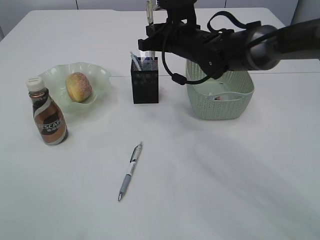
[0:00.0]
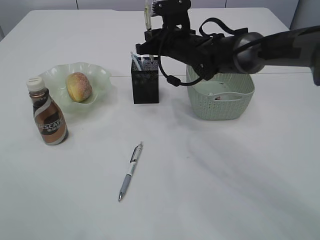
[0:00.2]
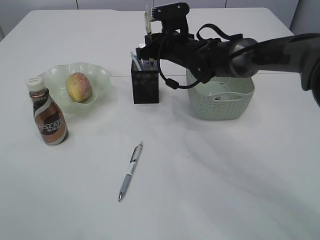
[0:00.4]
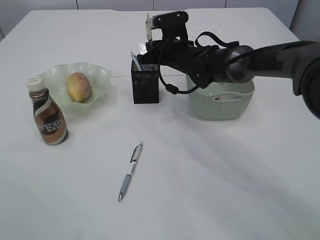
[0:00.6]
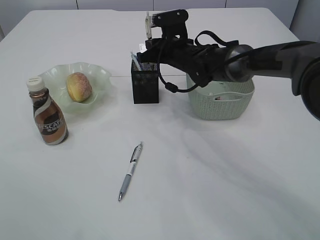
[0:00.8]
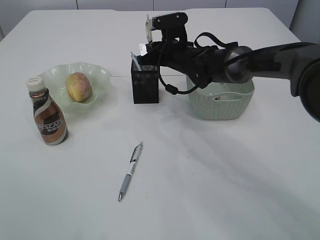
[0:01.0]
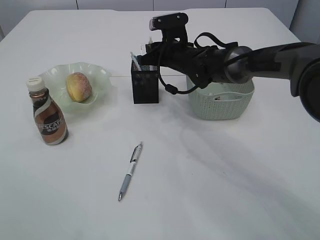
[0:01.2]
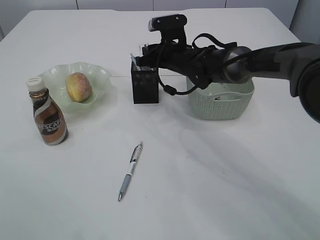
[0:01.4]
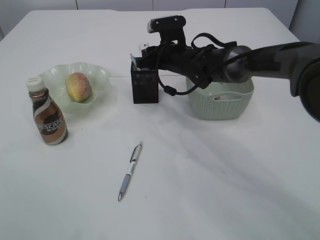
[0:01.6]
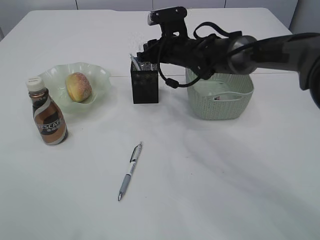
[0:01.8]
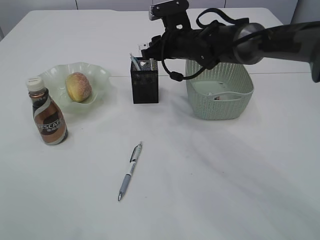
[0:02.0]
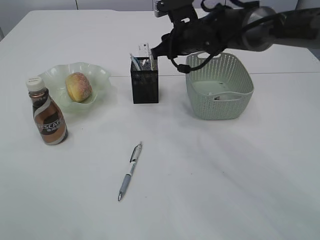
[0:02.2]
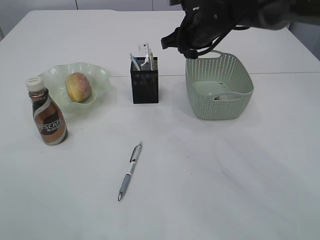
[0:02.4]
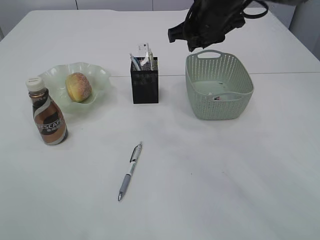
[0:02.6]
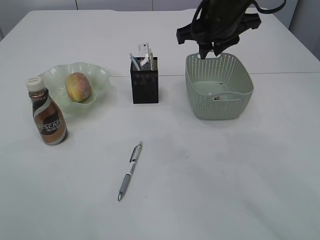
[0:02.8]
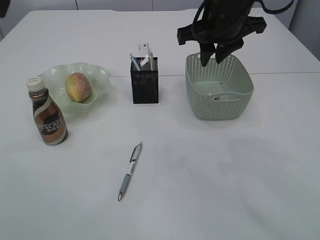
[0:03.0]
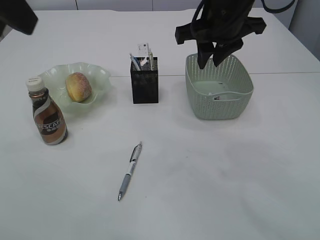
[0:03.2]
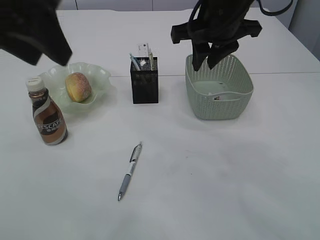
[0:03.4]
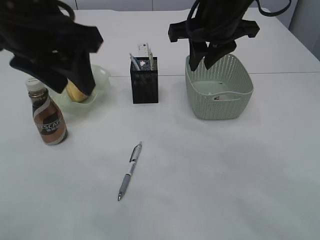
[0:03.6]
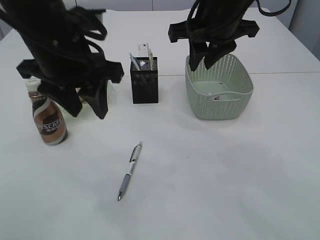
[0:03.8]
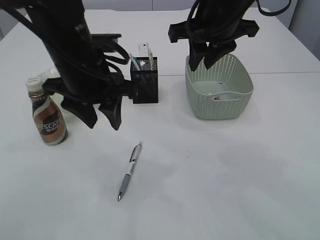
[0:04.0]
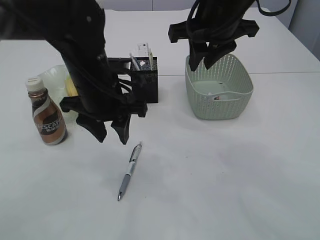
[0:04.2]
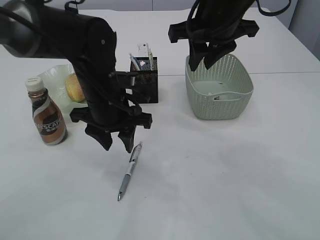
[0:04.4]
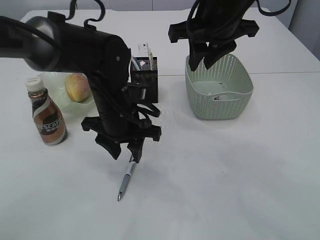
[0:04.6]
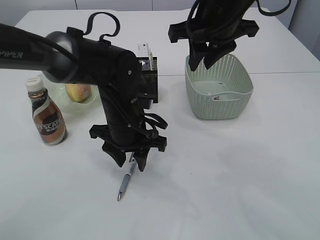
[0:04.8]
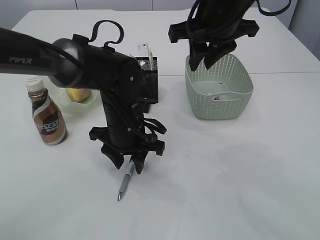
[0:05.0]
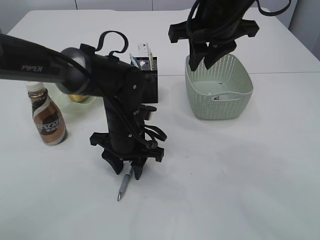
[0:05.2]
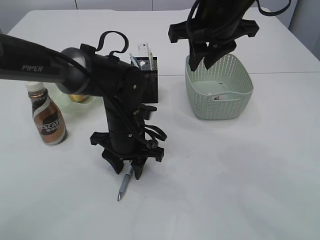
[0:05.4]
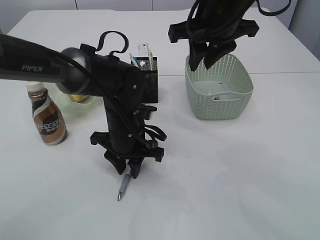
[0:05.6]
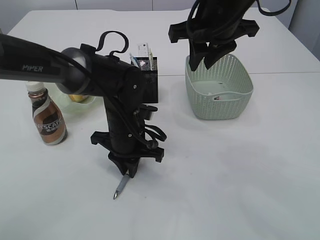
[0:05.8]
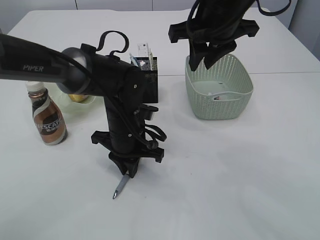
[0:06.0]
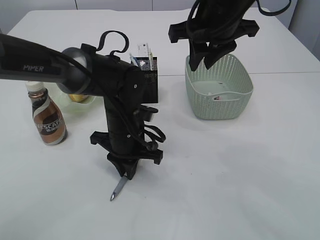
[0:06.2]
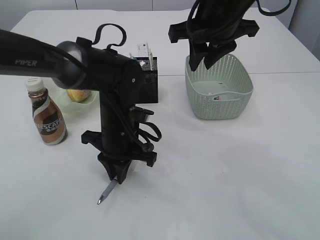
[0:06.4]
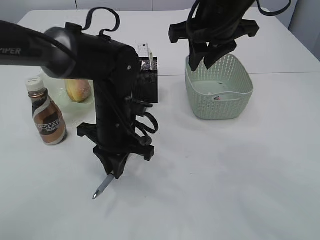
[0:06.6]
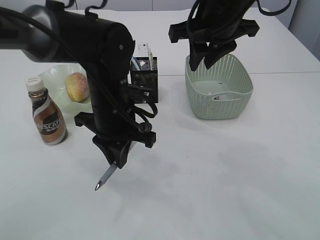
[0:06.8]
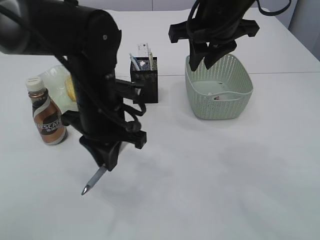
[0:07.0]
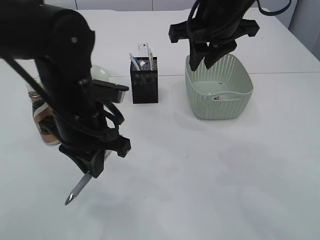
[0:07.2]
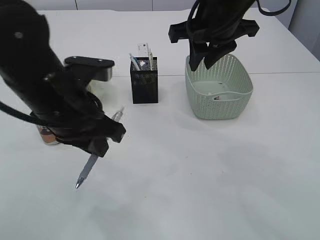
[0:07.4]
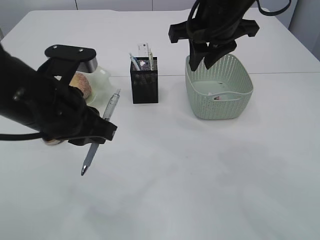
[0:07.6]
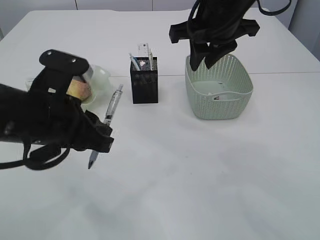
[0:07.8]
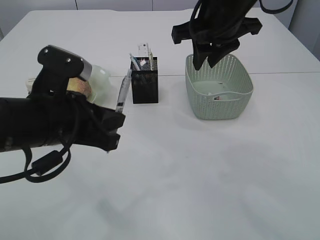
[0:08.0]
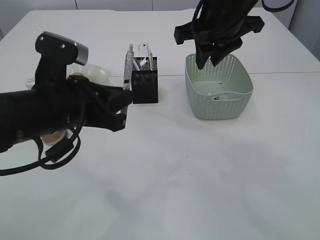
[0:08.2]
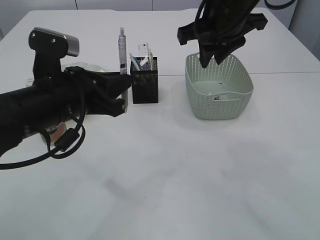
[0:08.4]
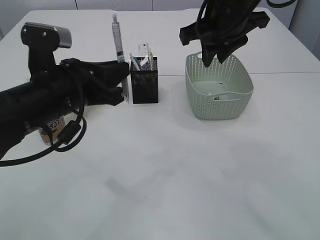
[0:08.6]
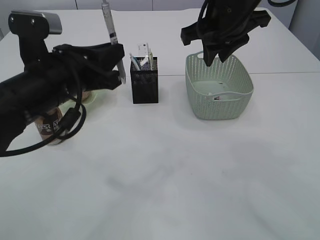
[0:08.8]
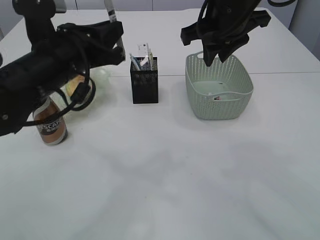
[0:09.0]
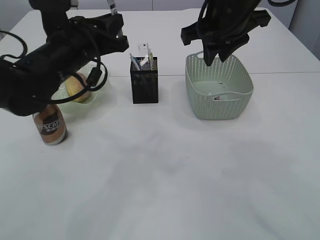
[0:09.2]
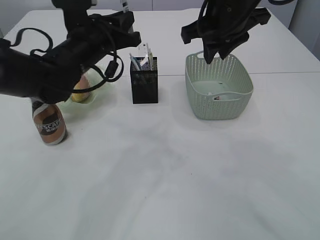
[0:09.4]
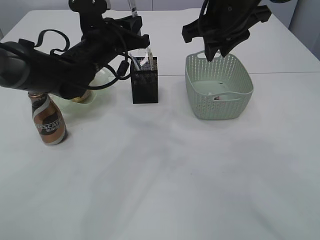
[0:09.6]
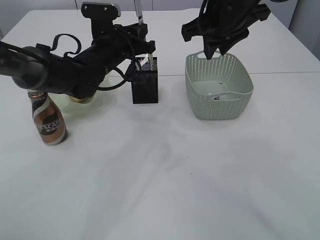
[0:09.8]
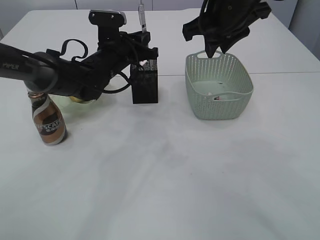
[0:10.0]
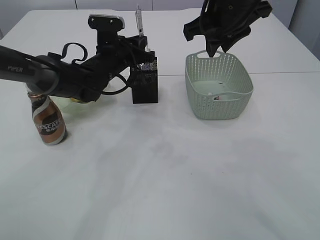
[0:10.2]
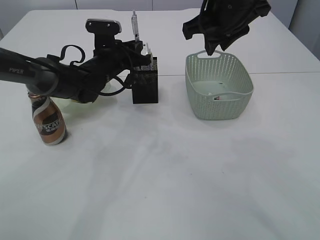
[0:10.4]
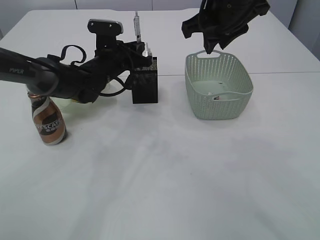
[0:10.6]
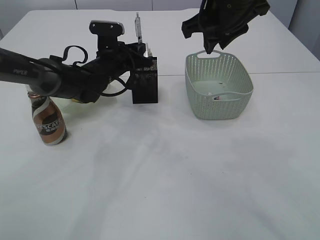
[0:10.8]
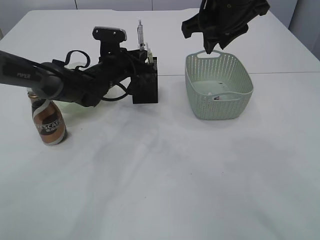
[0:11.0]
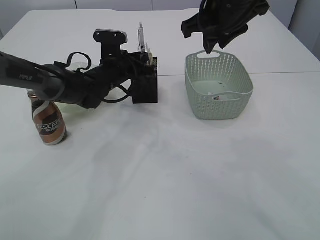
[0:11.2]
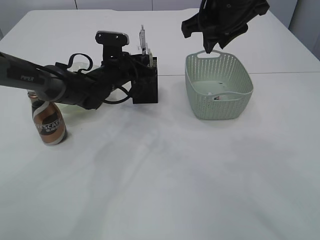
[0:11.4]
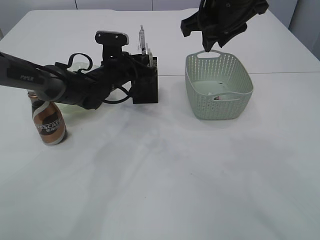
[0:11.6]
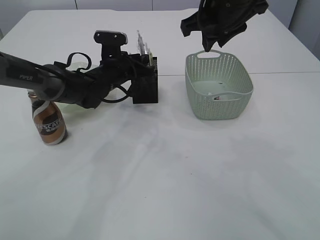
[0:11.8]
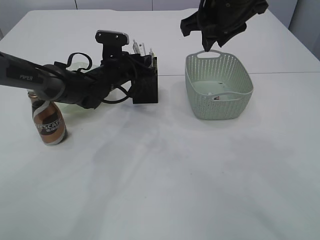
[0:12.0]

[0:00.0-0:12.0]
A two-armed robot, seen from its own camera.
Step, 0:00.0 to 0:02.0: Place the pen into the pen holder.
Step, 0:02.2 to 0:06.8: Pick up the pen with left arm.
0:00.0 to 0:01.6: The right gripper heads downward, covering roughly 5 cm, and opens.
0:01.6 to 0:03.0: The right gripper goes approximately 20 cm upward and backward.
0:03.0 to 0:04.4: The left gripper travels downward, forward and to the right by roughly 30 cm.
0:04.4 to 0:06.0: The left gripper heads downward, covering approximately 10 cm, and closes its fingers.
0:06.0 to 0:07.6: The left gripper goes about 20 cm upward, backward and to the left.
0:07.6 to 0:09.0: The left gripper moves forward, approximately 5 cm.
0:09.0 to 0:10.4: The left gripper travels forward and downward by some 20 cm.
0:10.4 to 0:12.0: The left gripper opens.

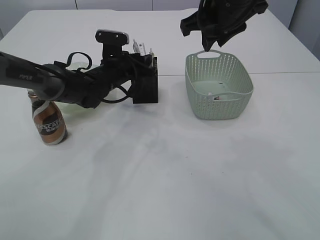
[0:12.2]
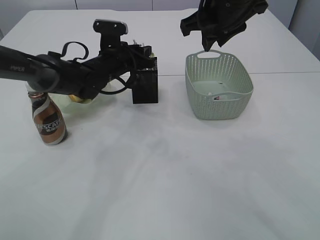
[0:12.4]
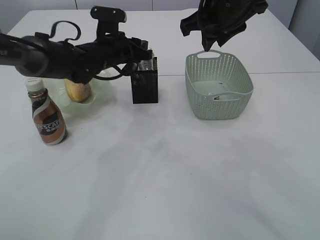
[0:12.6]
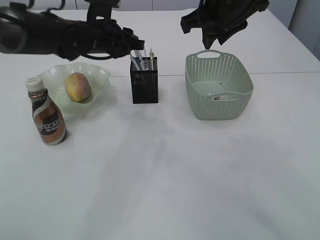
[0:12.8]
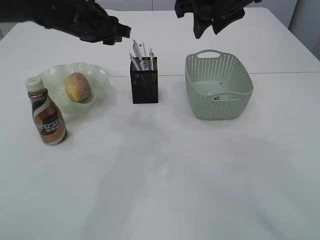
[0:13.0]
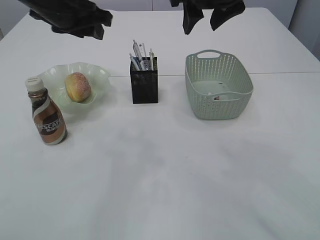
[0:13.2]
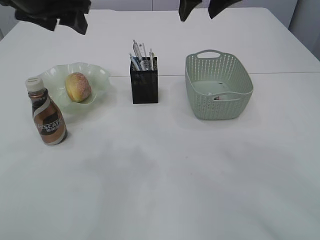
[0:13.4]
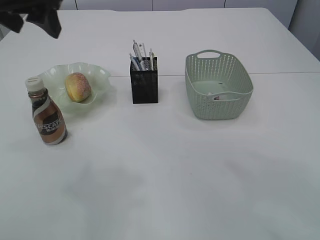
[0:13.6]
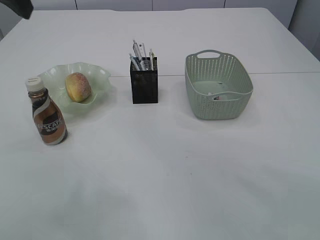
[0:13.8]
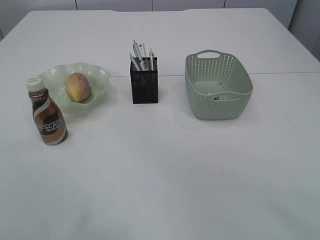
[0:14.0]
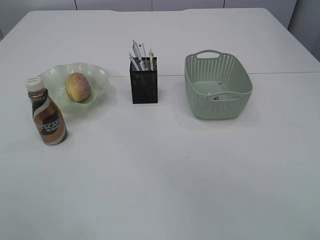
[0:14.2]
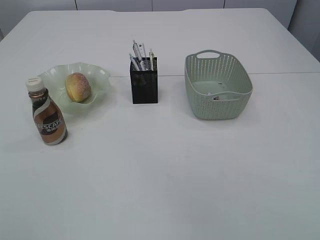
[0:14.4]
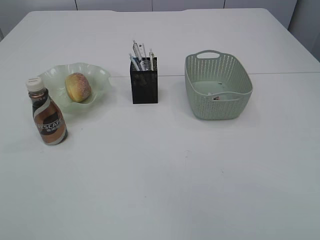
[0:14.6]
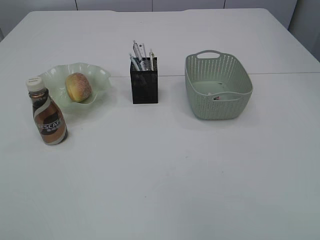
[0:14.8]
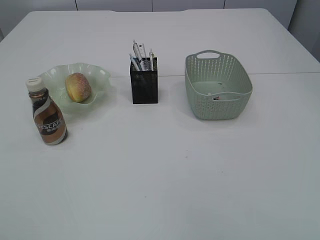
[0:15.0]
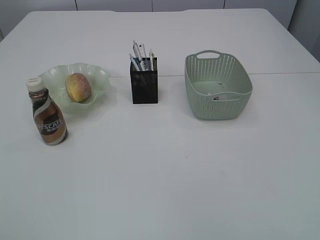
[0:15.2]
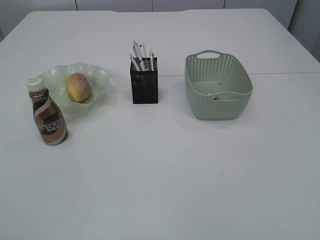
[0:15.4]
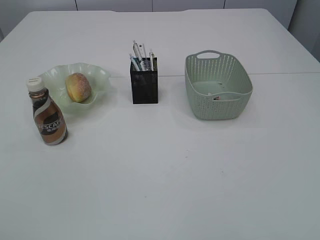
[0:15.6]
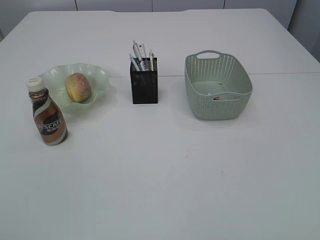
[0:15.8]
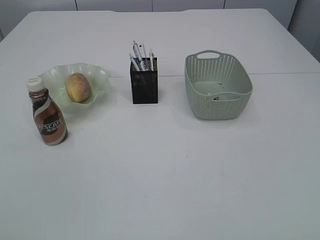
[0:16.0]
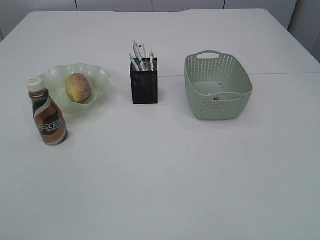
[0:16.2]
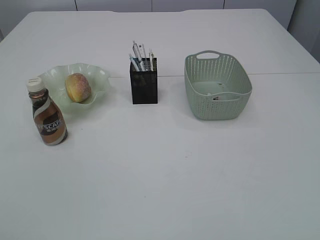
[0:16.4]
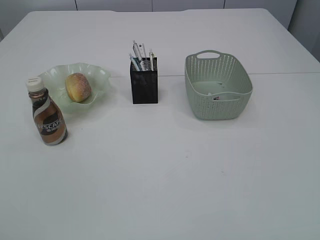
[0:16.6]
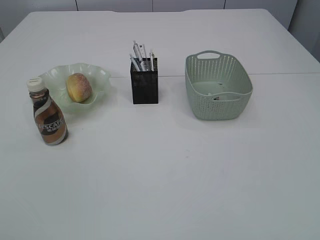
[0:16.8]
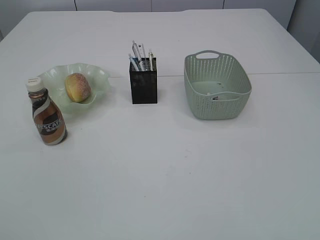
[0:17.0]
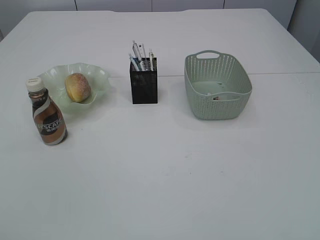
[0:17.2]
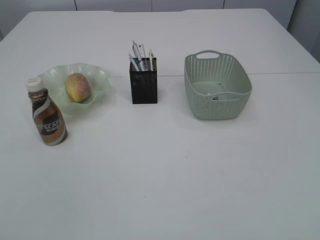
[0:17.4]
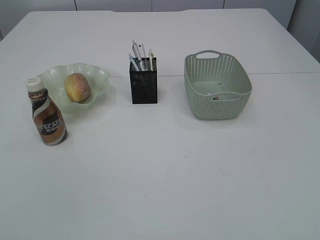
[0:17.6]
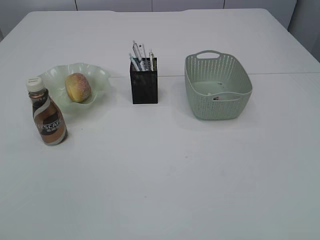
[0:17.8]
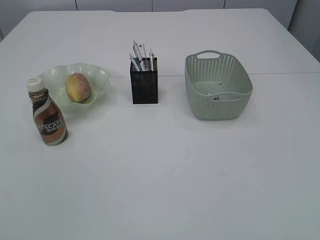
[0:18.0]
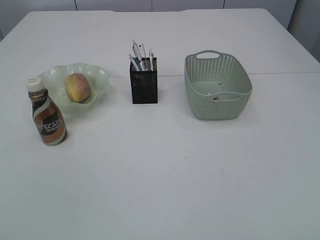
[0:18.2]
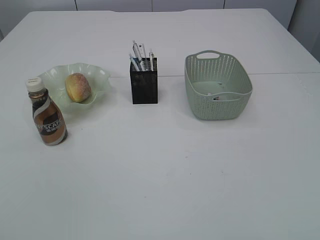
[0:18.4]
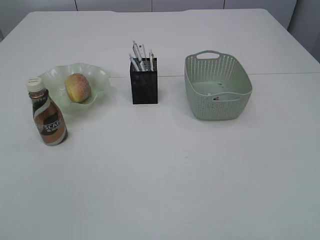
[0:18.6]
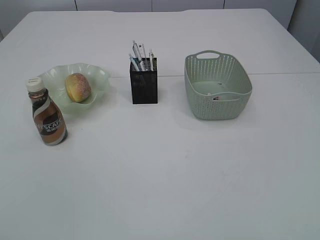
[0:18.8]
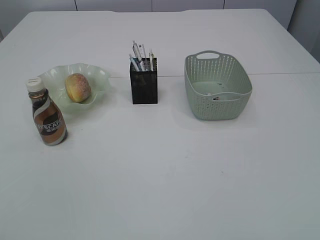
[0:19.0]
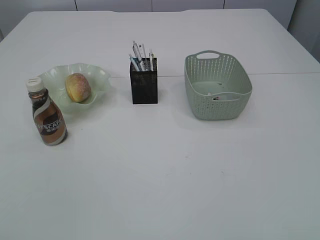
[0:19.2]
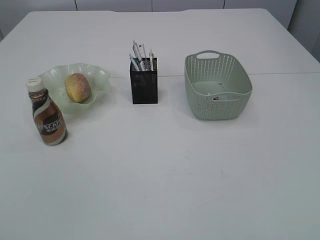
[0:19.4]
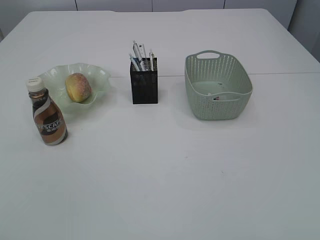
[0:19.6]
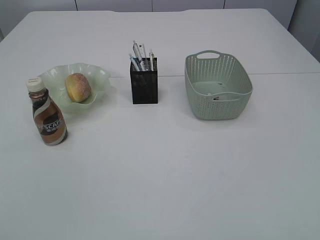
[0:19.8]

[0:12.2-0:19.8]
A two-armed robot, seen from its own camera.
0:12.2 to 0:13.8: The left gripper heads upward and backward, covering some 35 cm, and opens up. The right gripper moves upward and backward, about 15 cm, and opens.
0:13.8 to 0:15.2: The left gripper is displaced backward by roughly 30 cm.
0:18.2 to 0:19.8: Neither gripper changes place.

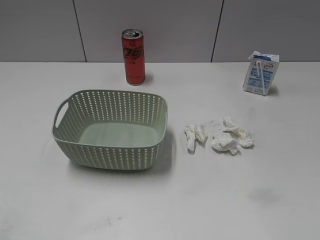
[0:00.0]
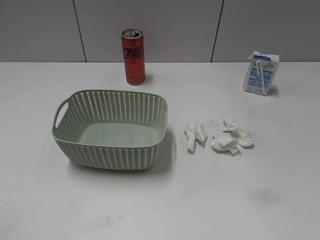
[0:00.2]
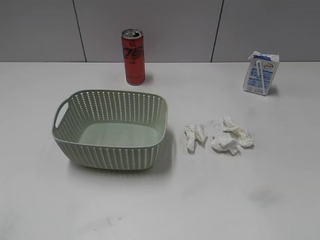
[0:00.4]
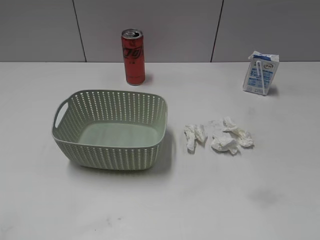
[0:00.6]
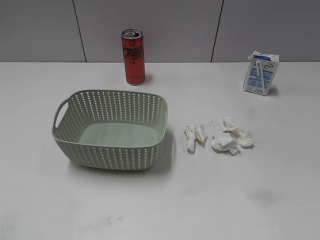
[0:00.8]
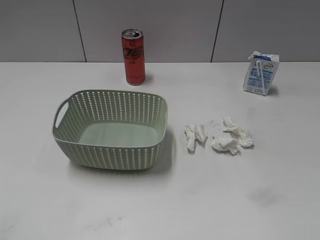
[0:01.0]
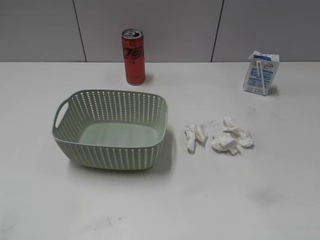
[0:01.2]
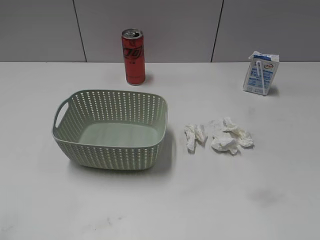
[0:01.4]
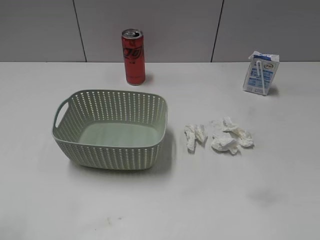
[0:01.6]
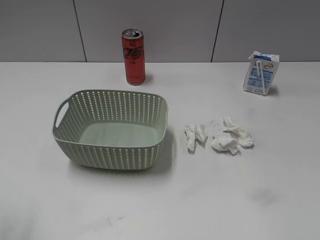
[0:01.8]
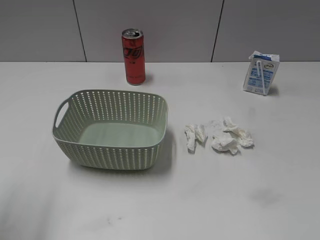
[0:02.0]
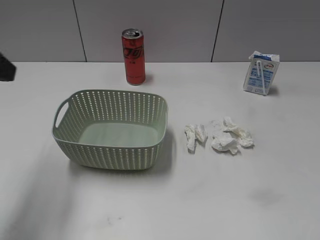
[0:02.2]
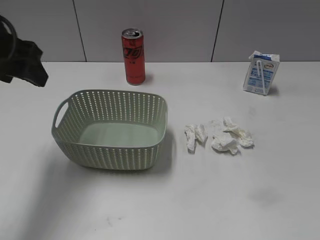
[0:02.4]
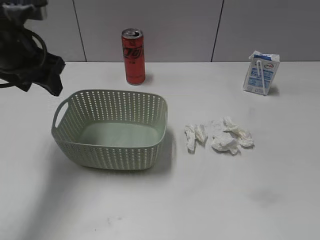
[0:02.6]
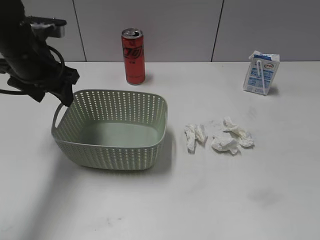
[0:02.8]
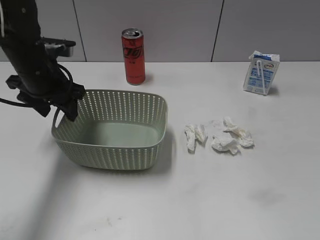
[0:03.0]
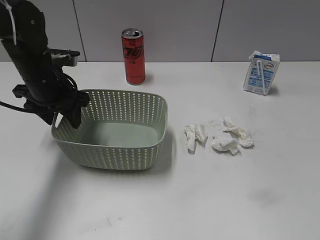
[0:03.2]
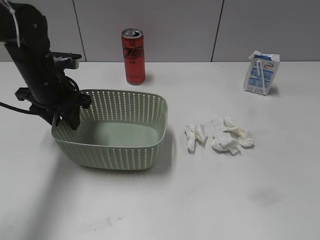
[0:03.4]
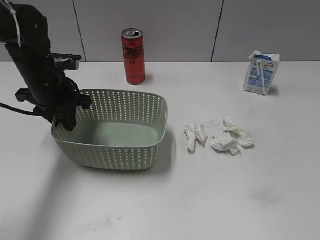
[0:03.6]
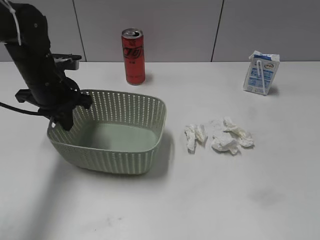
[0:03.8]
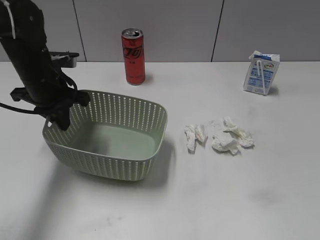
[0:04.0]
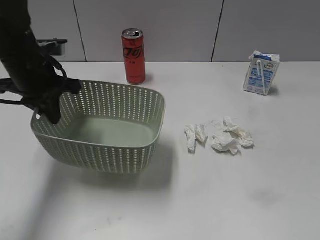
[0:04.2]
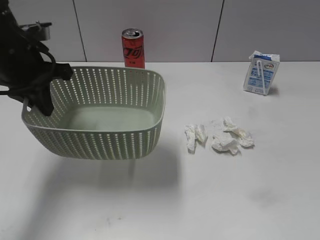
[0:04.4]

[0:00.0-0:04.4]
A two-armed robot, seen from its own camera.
Step, 0:02.2 to 0:03.8: Grasp the basket with left gripper.
0:01.4 to 0:03.0: The left gripper travels forward by some 30 cm.
0:03.0 to 0:04.4: The left gripper is displaced upward by roughly 5 cm, and closes up.
